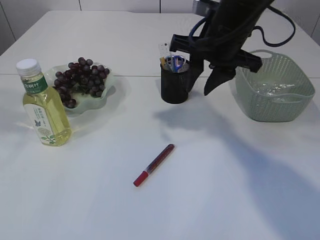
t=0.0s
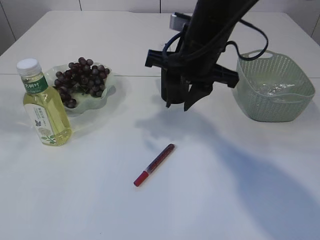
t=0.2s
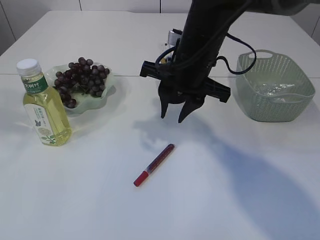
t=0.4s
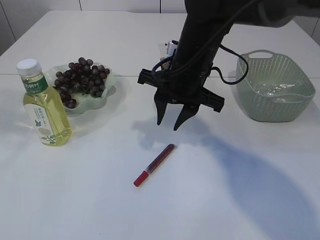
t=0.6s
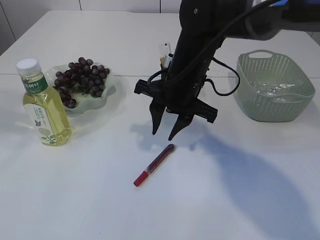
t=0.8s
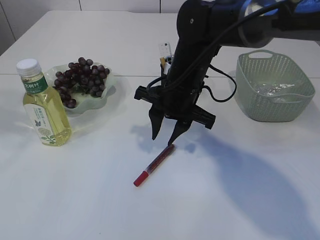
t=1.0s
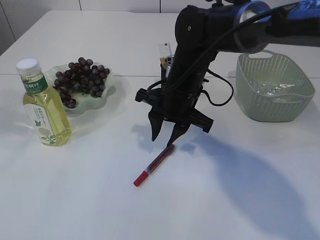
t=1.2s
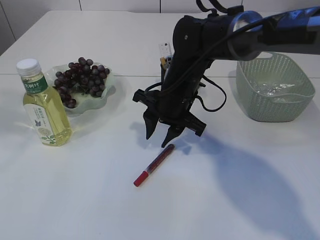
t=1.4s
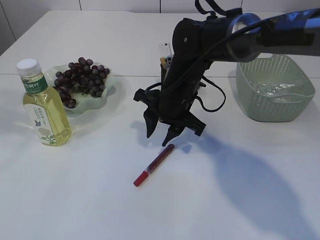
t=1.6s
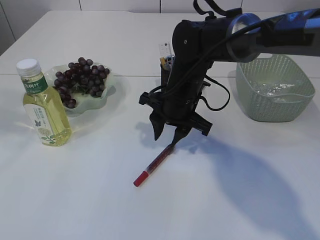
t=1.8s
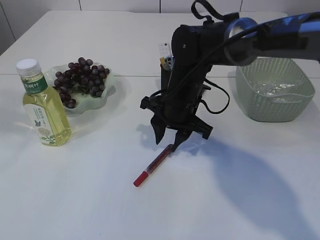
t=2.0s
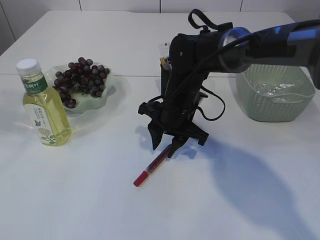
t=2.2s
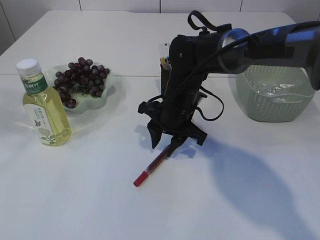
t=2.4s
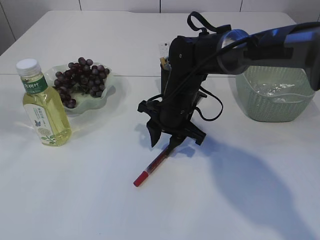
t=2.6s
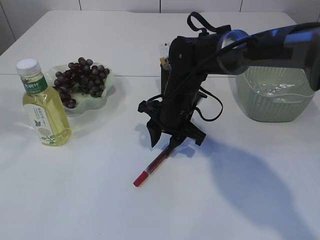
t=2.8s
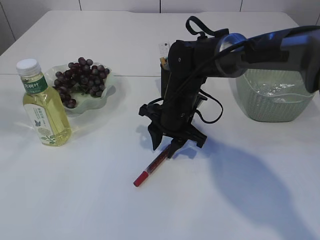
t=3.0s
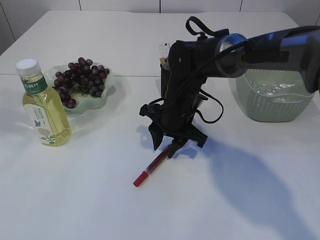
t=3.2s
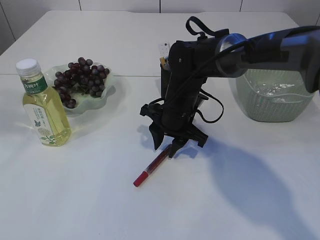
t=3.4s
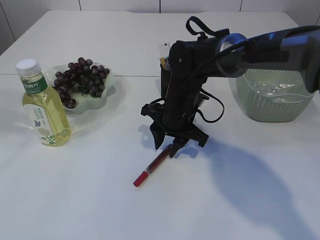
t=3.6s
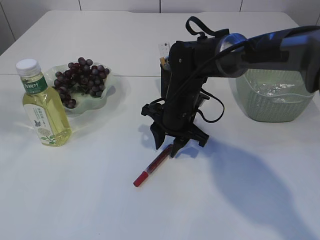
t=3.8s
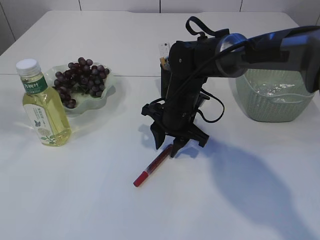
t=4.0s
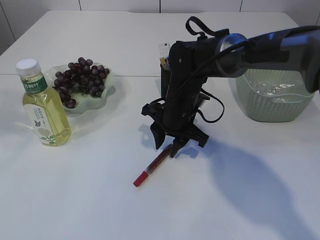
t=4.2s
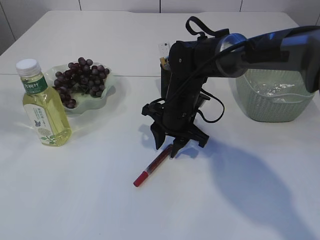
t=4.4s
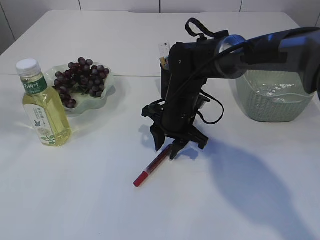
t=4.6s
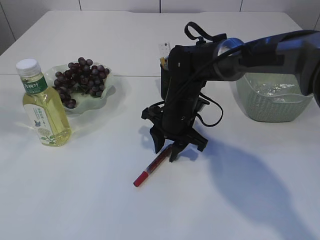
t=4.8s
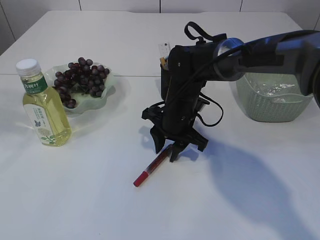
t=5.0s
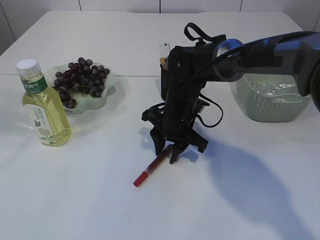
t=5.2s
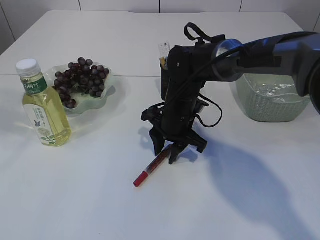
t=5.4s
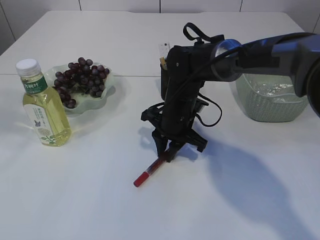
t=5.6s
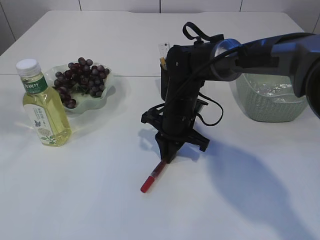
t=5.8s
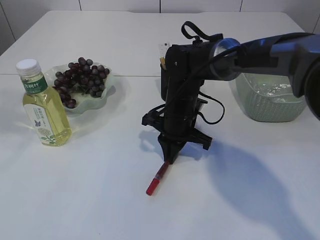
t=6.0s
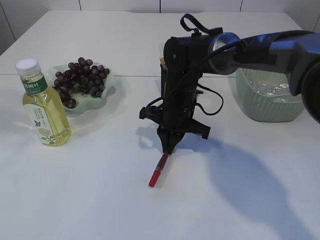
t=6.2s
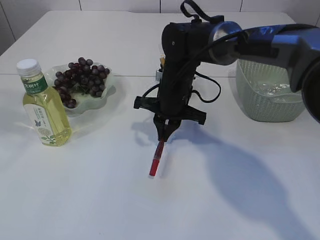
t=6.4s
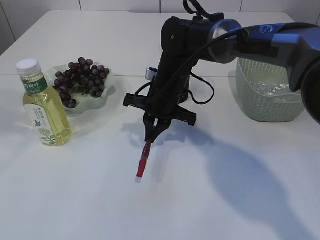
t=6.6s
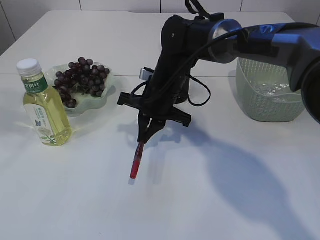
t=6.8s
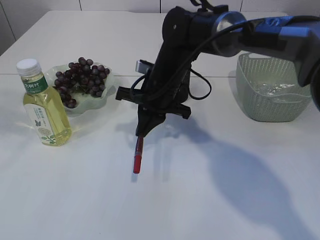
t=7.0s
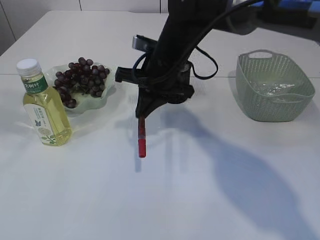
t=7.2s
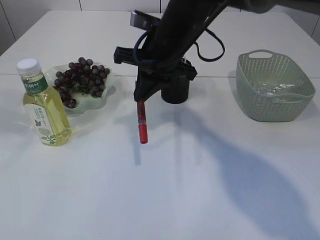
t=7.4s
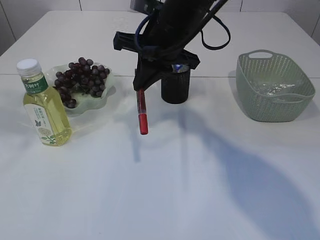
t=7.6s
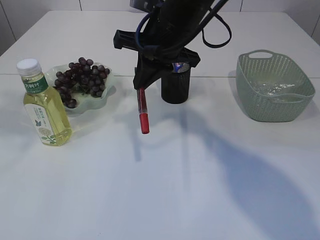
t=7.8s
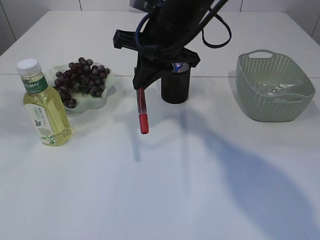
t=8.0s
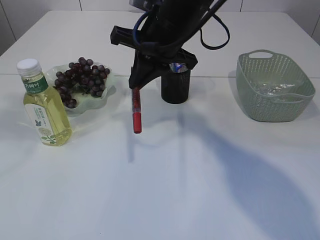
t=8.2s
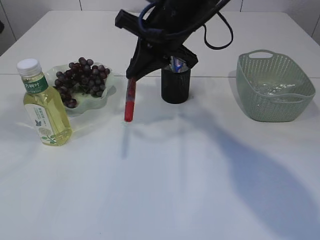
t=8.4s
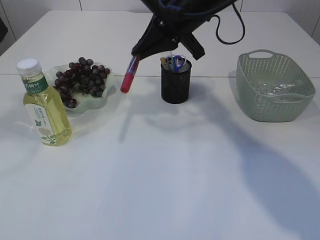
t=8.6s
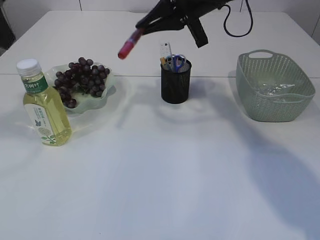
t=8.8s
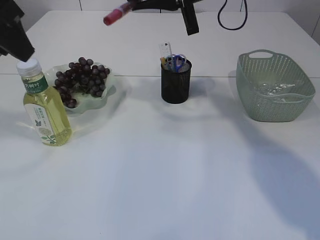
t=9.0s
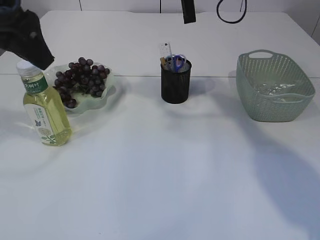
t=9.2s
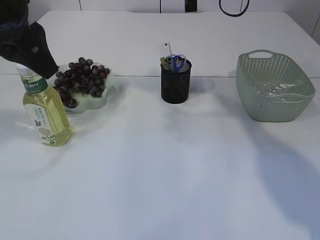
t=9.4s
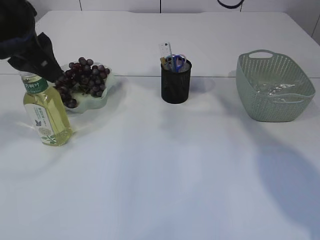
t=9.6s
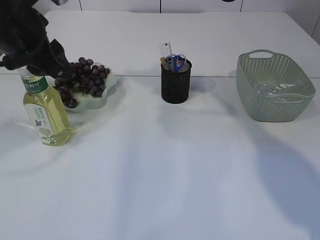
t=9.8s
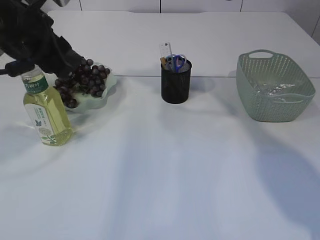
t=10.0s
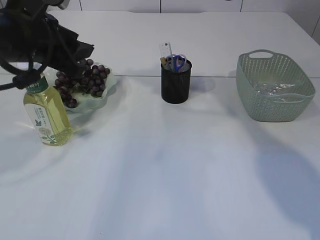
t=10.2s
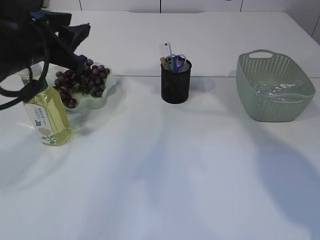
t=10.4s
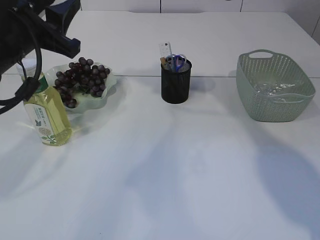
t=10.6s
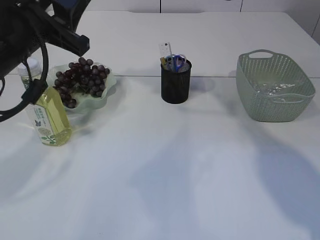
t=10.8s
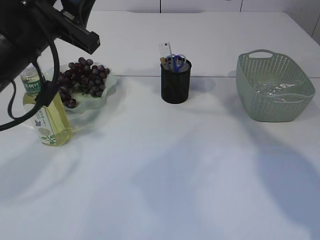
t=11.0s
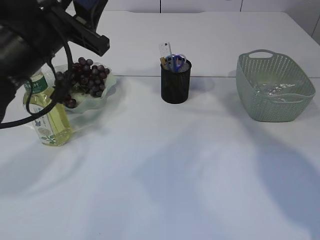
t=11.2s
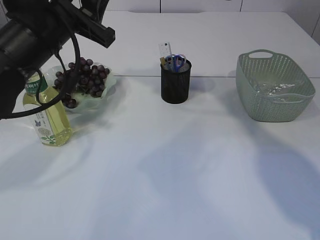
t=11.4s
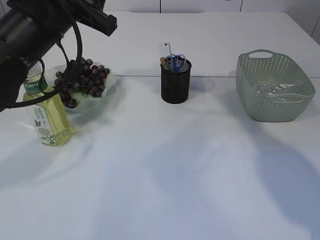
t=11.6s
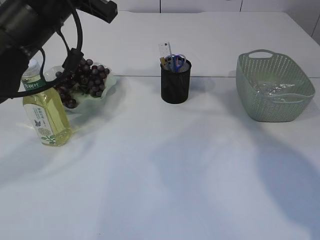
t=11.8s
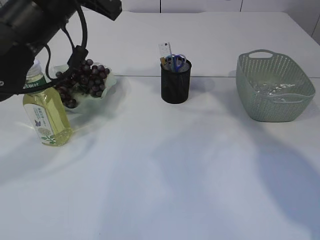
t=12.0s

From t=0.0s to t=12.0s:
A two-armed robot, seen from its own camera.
Step, from t=0.0s to t=7.0s: pick up the red glue.
From t=0.0s to t=1.6s: The right gripper travels downward and to the left by about 15 cm.
From t=1.6s to t=3.0s: The grippers stay close to where they were, moving slightly.
From t=3.0s to t=4.4s: Both grippers stay about where they are.
From t=4.4s to t=6.0s: The right gripper closes up.
From t=6.0s to t=7.6s: The right gripper goes approximately 15 cm upward.
From t=7.6s to t=9.0s: The left gripper heads downward, covering approximately 5 cm; the right gripper goes roughly 10 cm to the right and upward.
From t=9.0s to t=10.4s: The left gripper travels downward by some 10 cm.
From t=10.4s to t=12.0s: The left gripper changes place by roughly 5 cm.

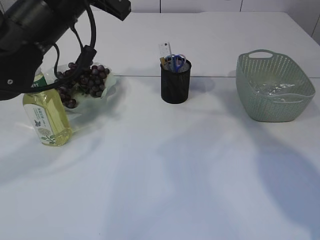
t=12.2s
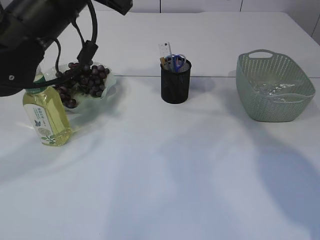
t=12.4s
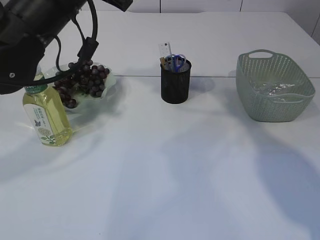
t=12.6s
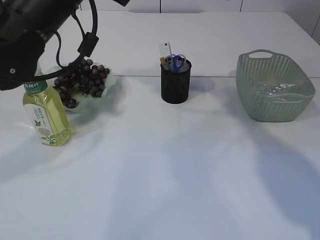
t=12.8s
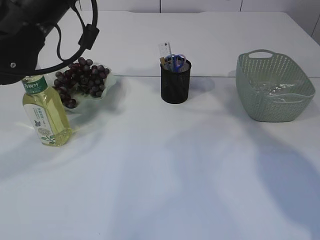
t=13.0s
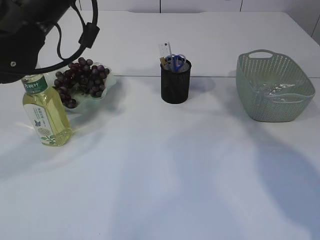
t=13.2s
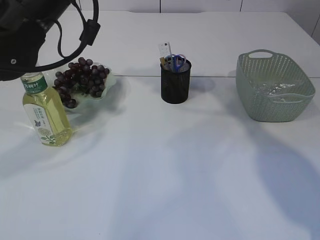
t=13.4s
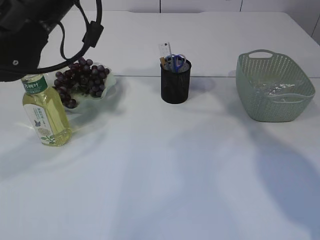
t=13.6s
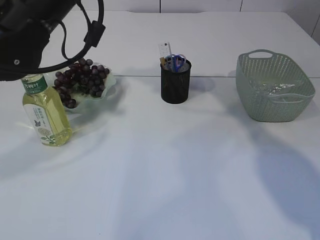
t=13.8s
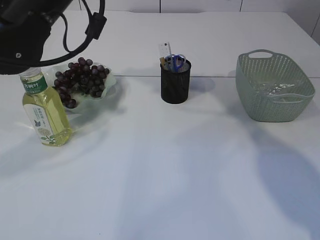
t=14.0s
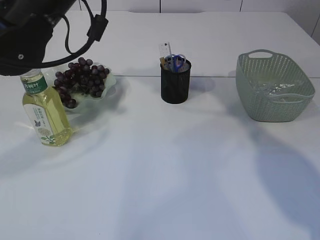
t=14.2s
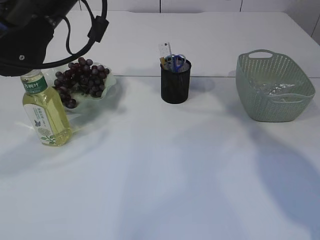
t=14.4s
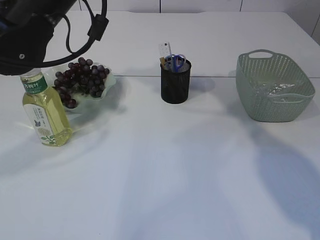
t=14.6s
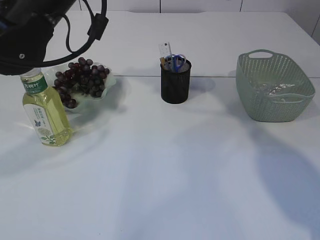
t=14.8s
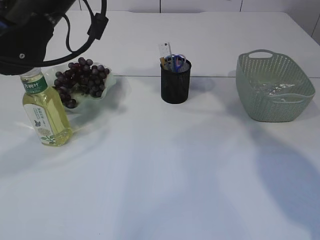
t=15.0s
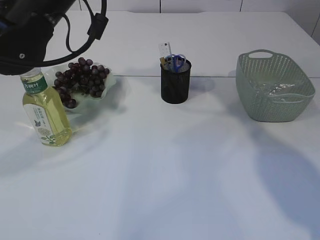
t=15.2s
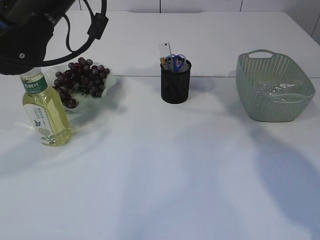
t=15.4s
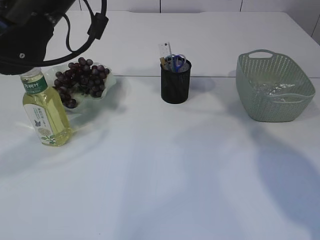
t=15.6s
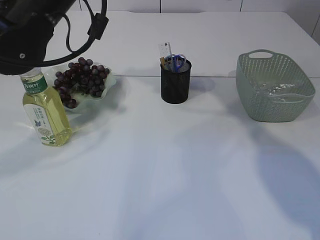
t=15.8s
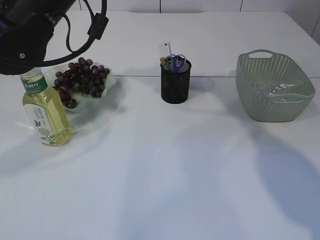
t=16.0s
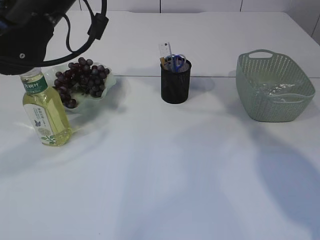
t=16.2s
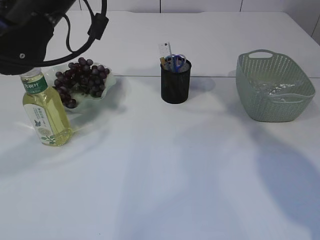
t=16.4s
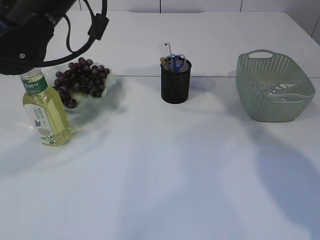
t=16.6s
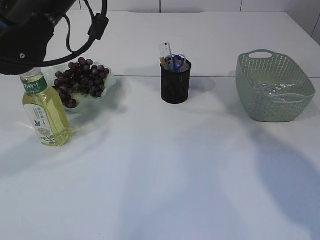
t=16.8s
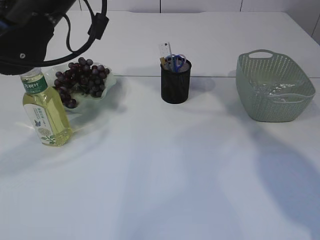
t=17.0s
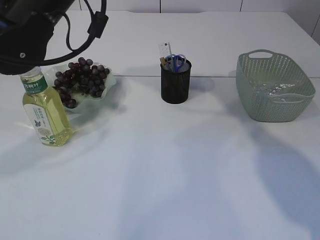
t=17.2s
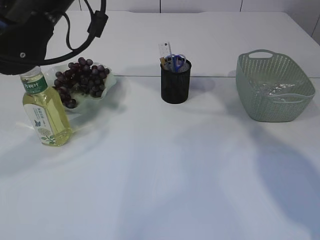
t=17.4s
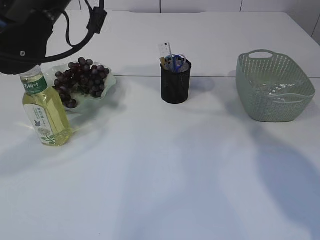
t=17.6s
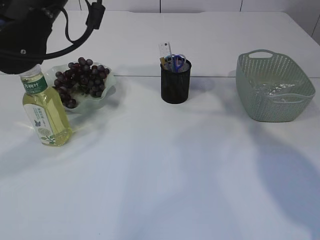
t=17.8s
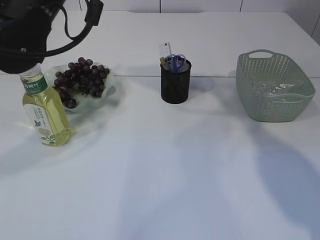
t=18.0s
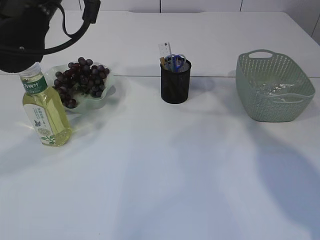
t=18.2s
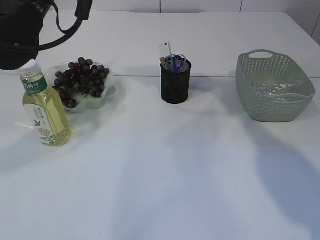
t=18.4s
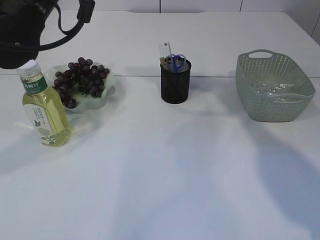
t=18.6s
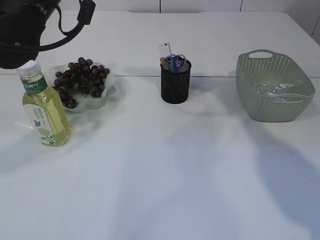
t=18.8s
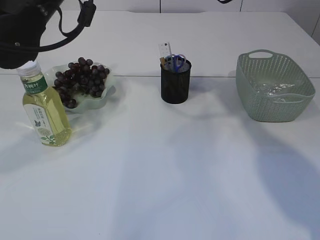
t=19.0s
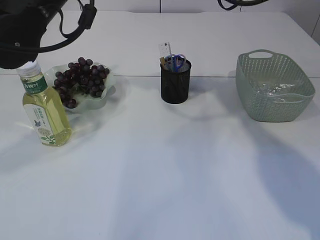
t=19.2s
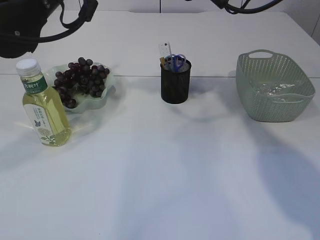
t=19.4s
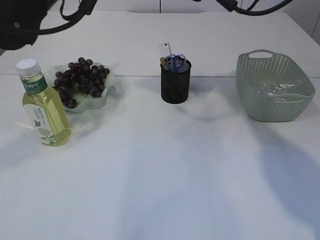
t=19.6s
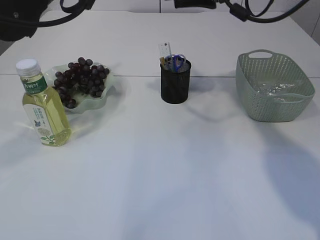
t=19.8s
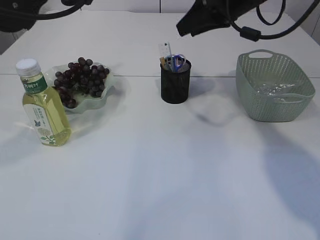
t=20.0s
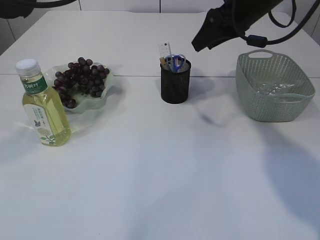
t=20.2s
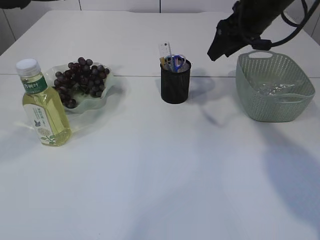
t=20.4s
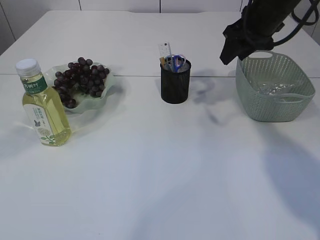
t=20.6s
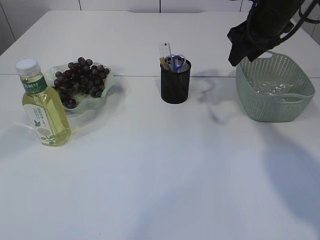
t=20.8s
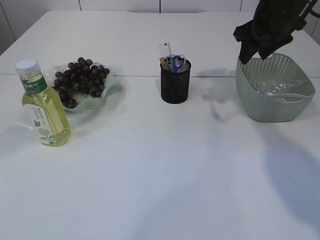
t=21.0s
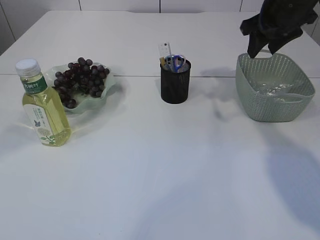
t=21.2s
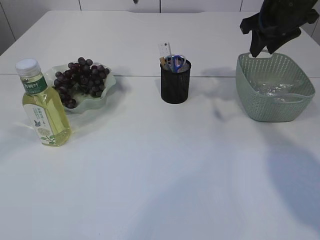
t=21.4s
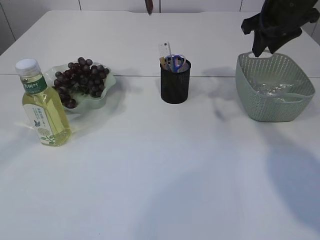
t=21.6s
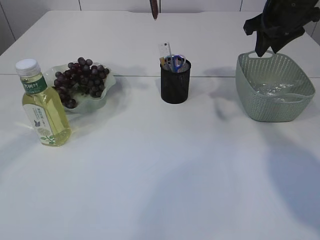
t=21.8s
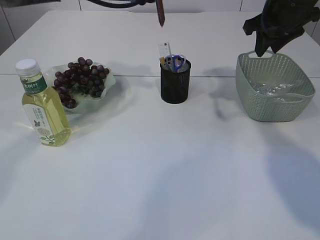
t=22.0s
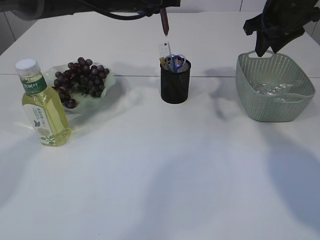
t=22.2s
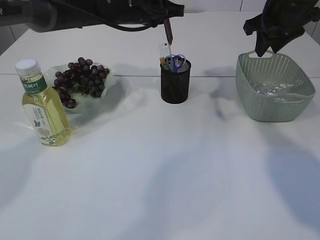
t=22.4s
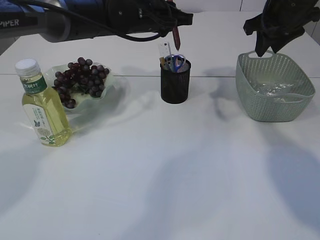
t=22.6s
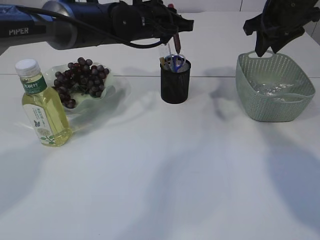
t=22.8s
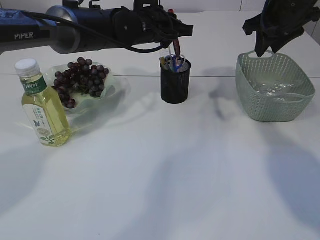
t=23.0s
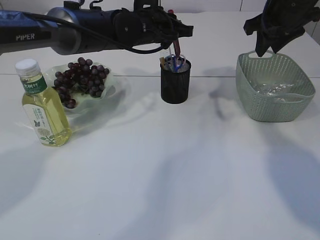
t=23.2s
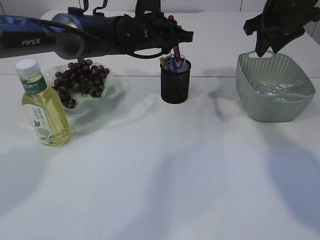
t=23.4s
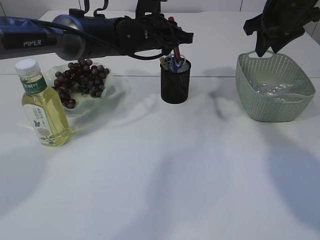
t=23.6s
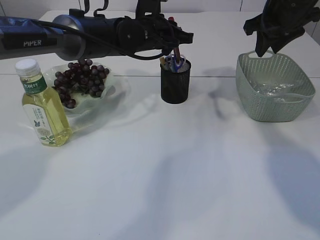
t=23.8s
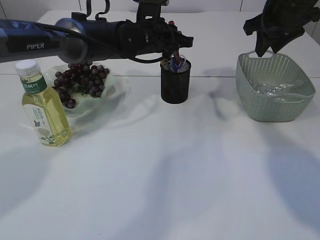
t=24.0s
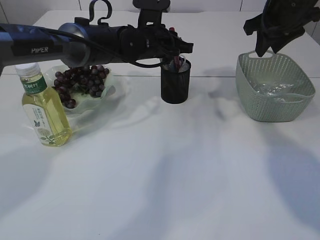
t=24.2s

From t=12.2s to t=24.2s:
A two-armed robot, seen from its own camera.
Step, from t=12.2s to t=18.2s: Hand over the red glue.
From t=12.2s to t=13.8s: There are only small adjustments of the grippers.
From t=13.8s to t=15.2s: The left gripper closes up.
From t=15.2s to t=16.6s: Neither gripper changes place.
From t=18.2s to t=19.8s: The right gripper shifts by approximately 5 cm.
From t=19.8s to t=21.2s: The right gripper moves to the right, approximately 10 cm.
From t=21.2s to t=22.6s: The left gripper shifts about 15 cm downward, to the right and forward.
From t=22.6s to t=24.2s: The left gripper heads downward, covering approximately 5 cm.
